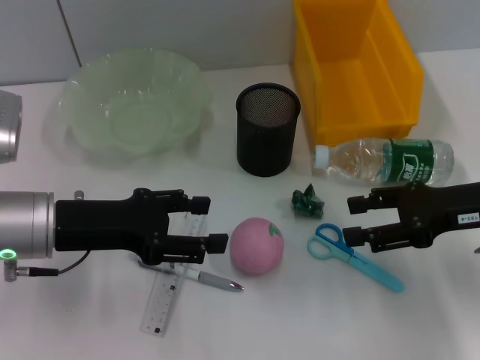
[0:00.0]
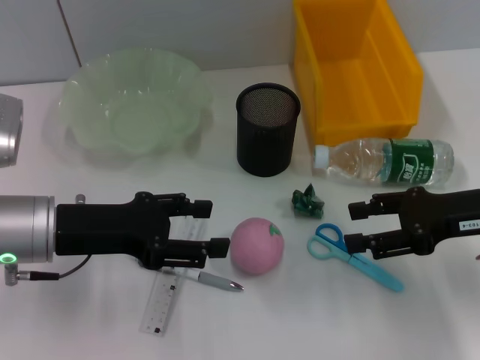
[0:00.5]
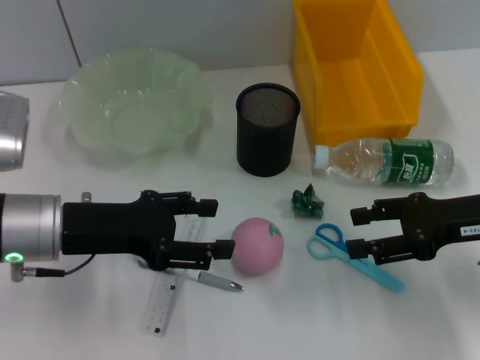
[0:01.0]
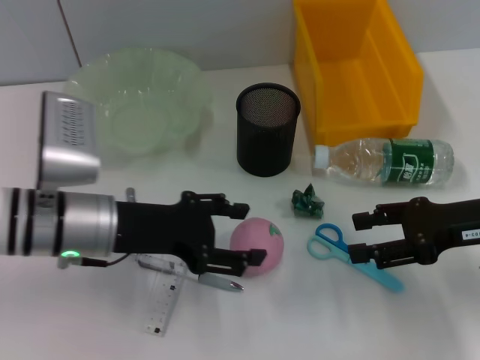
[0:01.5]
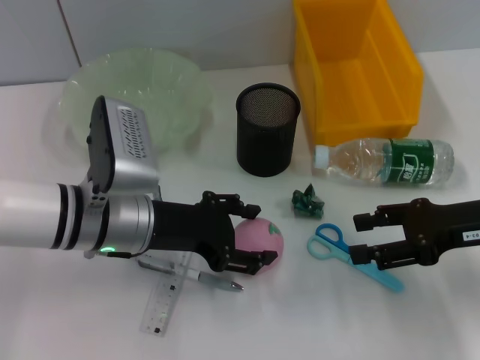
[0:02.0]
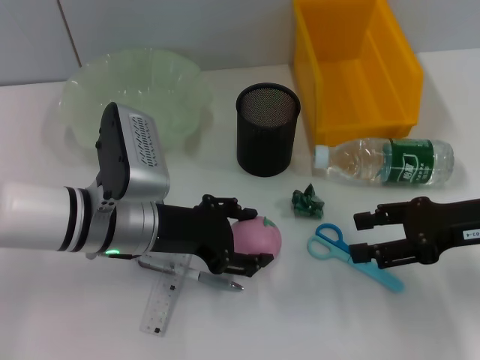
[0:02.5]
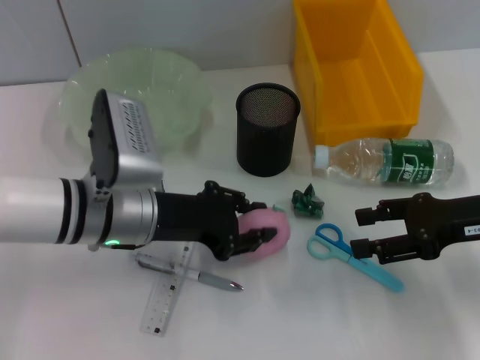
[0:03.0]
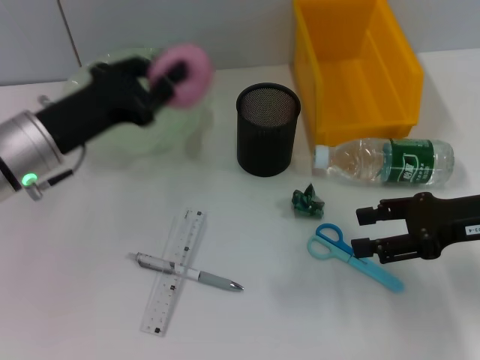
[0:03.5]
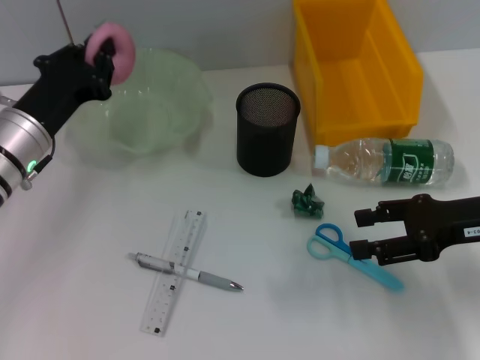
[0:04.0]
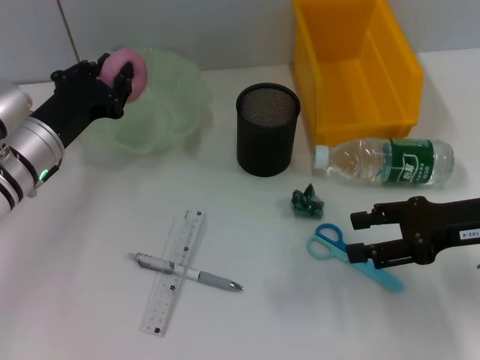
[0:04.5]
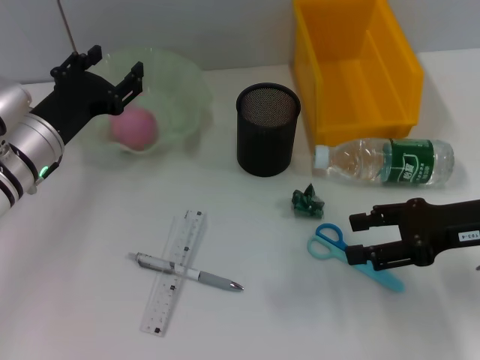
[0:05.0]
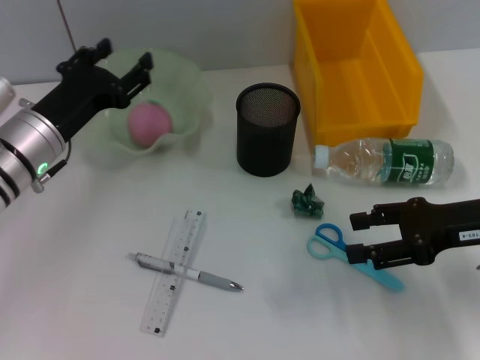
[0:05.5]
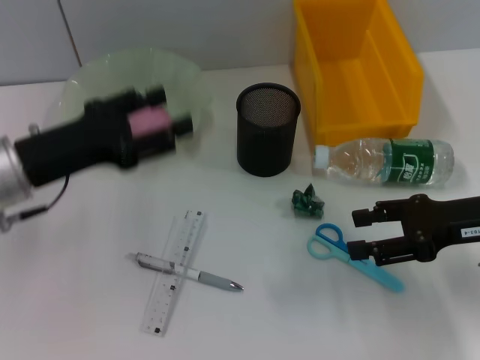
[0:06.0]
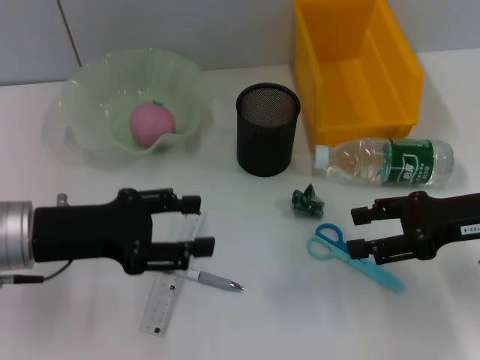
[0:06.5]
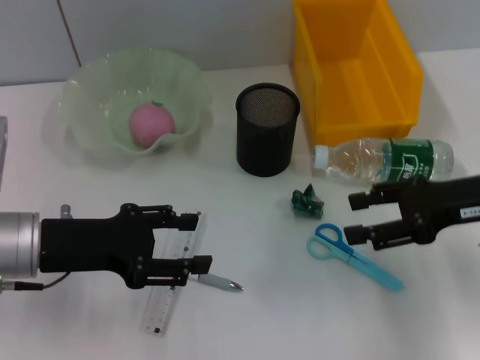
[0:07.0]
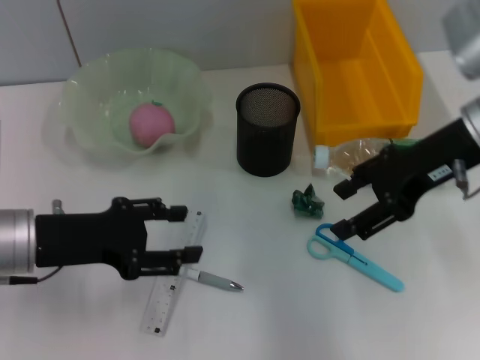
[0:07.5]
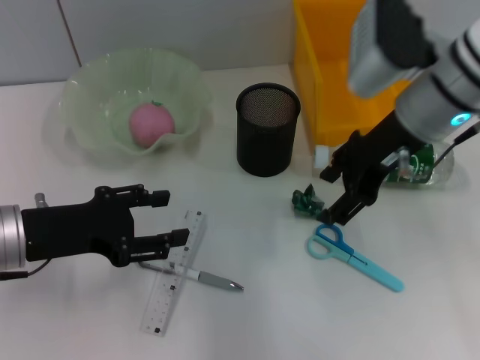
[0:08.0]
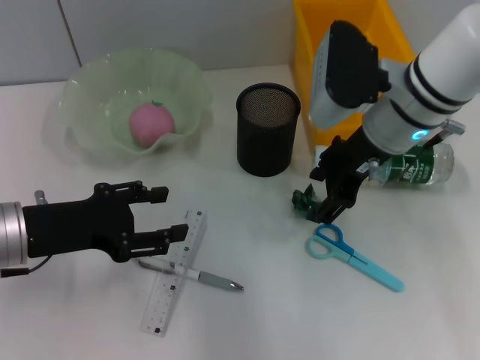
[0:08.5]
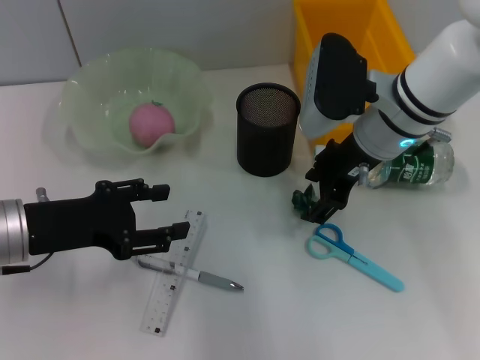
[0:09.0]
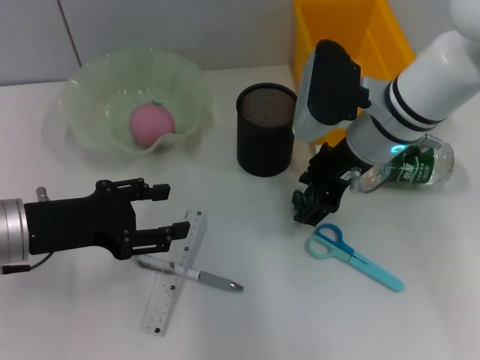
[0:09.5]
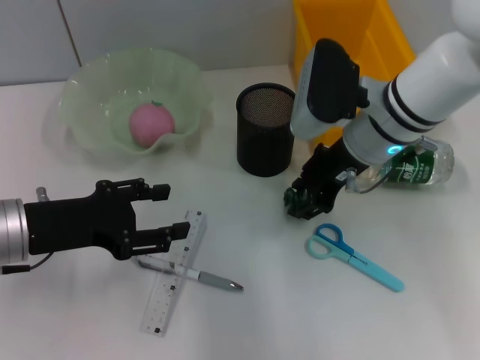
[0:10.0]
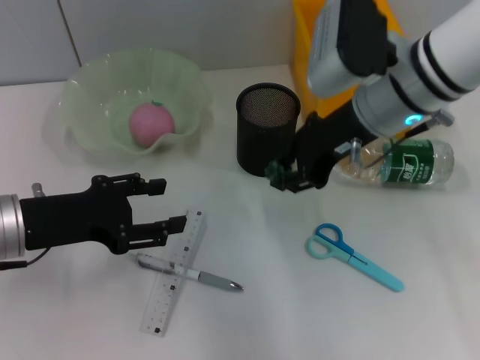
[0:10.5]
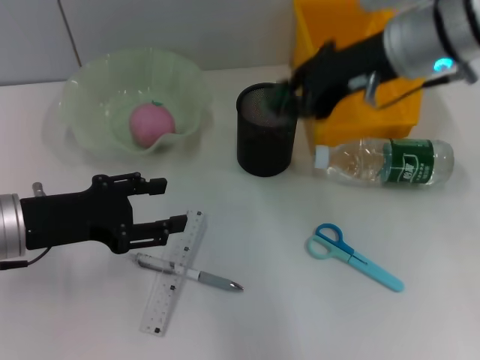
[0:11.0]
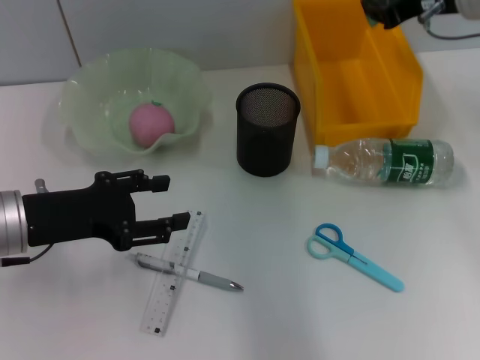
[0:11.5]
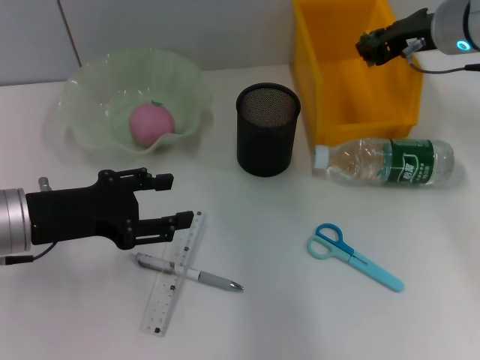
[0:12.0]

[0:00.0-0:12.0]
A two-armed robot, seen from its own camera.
Step, 0:00.0 to 0:02.5: Grab the peach with the left hand.
Step, 0:03.0 to 0:05.0: Place the peach into the fruit bowl with the left hand.
Step, 0:05.5 to 0:09.5: Grab the plastic with the right hand.
0:00.0 to 0:02.0: The left gripper travels to the right by approximately 5 cm.
0:02.0 to 0:04.0: The left gripper shifts some 10 cm to the left, and closes up.
0:04.0 to 0:06.0: The left gripper moves some 5 cm, and opens its fingers.
0:06.0 to 0:08.0: The right gripper heads to the left, upward and forward, covering some 15 cm.
0:08.0 to 0:10.0: The right gripper is displaced downward by some 5 cm.
0:10.0 to 0:12.0: The right gripper goes approximately 10 cm to the right and forward, and closes its fingers.

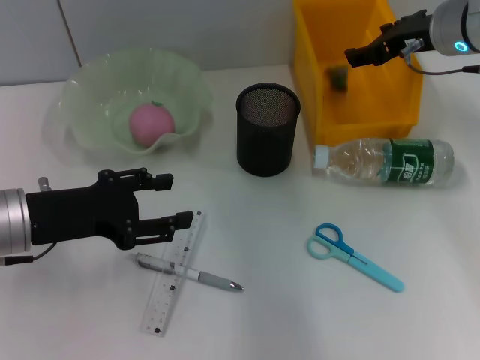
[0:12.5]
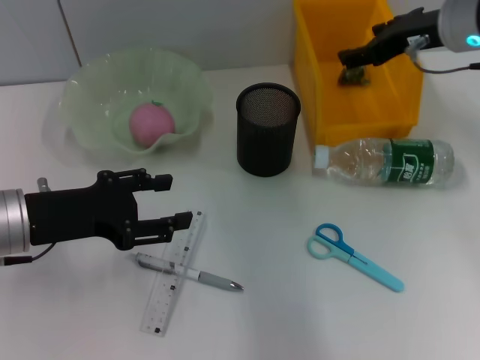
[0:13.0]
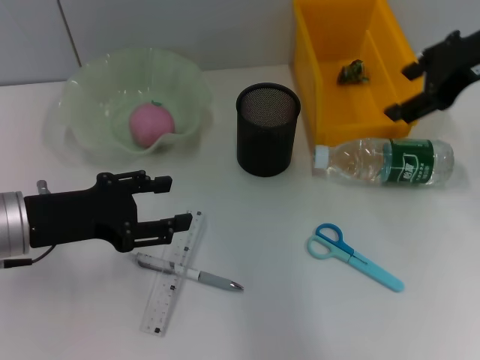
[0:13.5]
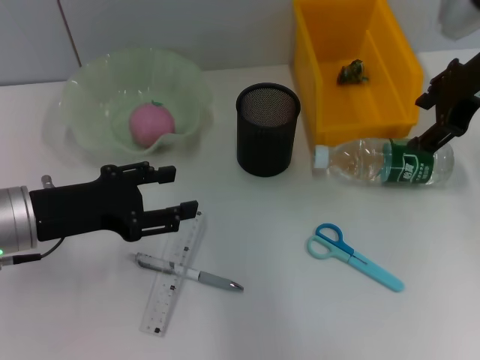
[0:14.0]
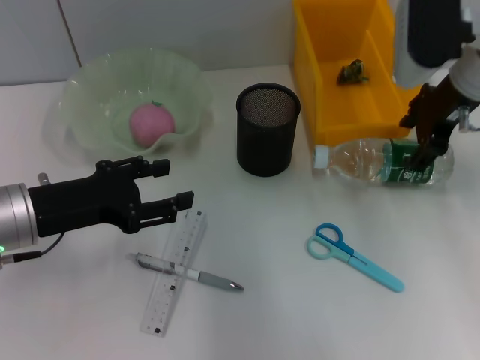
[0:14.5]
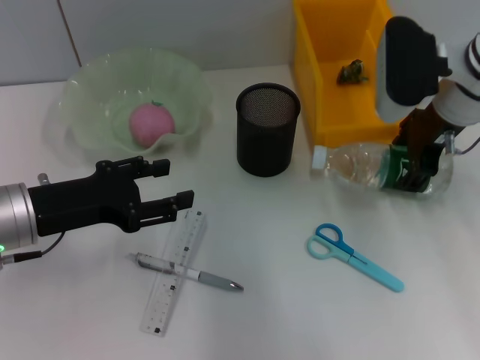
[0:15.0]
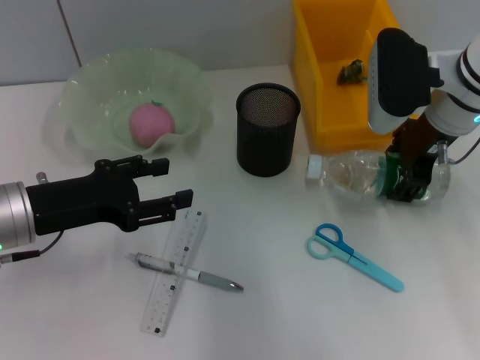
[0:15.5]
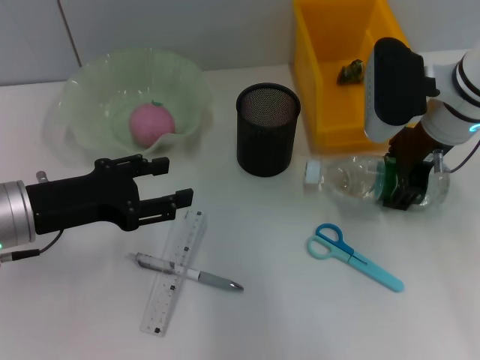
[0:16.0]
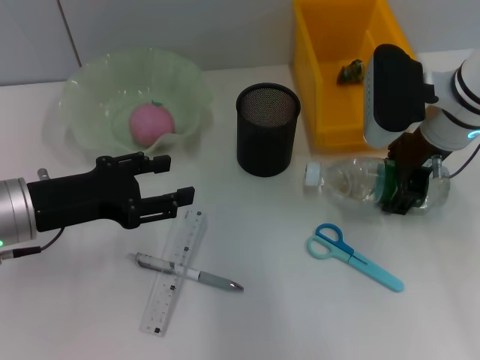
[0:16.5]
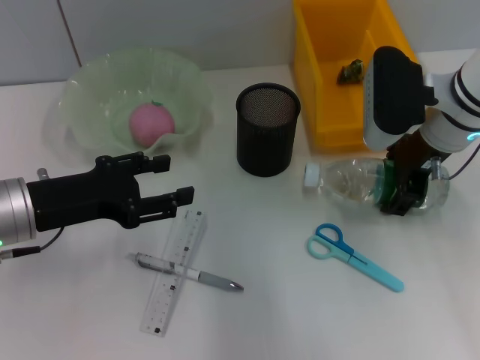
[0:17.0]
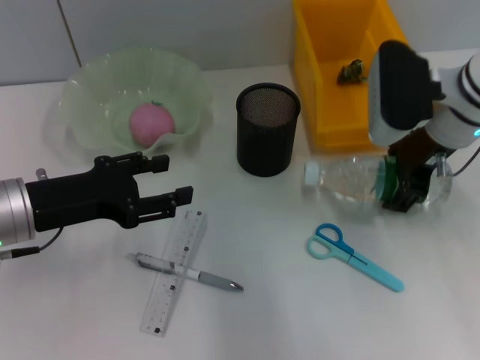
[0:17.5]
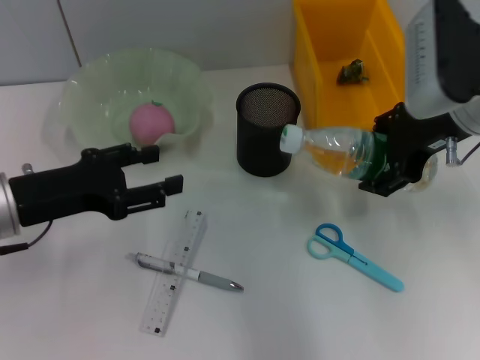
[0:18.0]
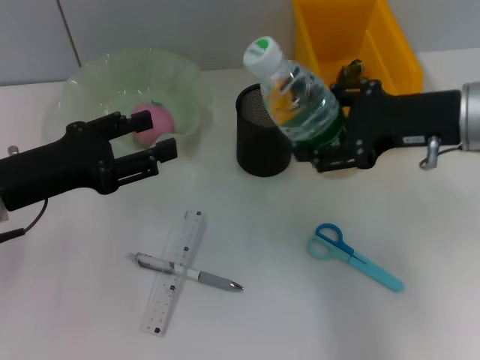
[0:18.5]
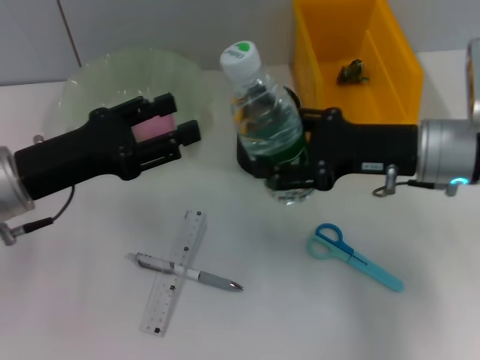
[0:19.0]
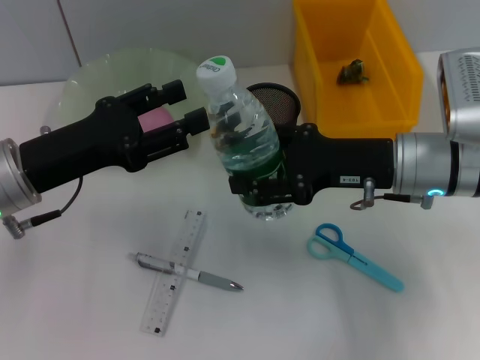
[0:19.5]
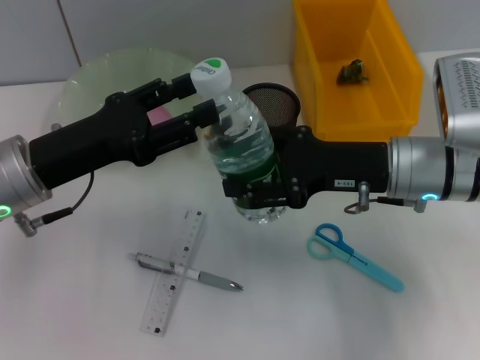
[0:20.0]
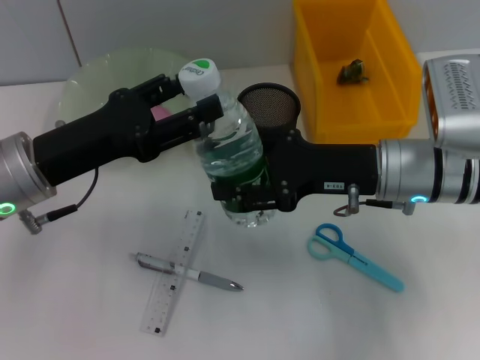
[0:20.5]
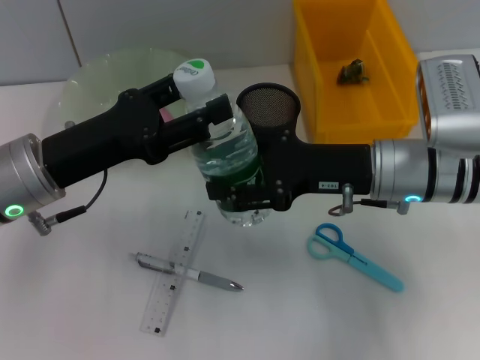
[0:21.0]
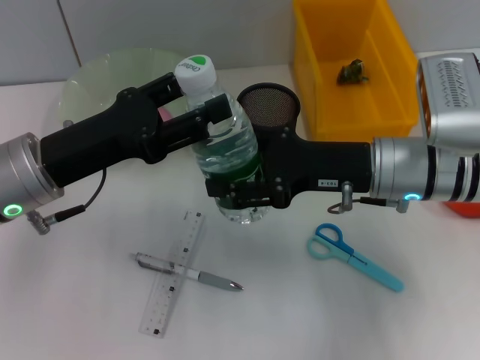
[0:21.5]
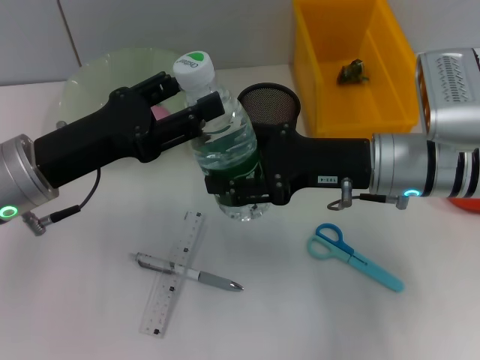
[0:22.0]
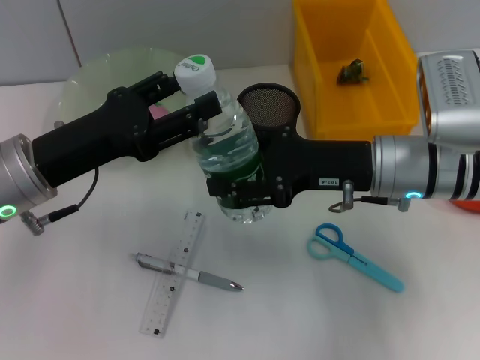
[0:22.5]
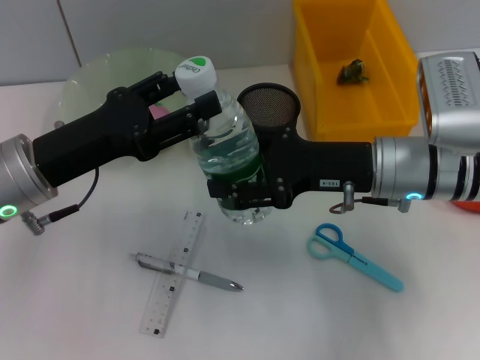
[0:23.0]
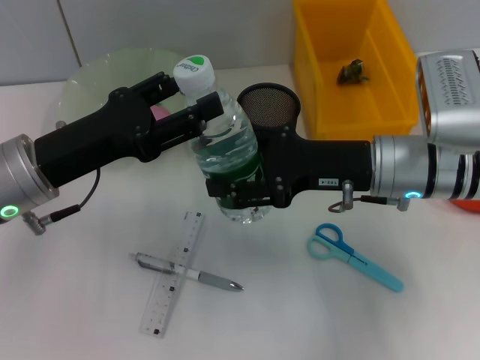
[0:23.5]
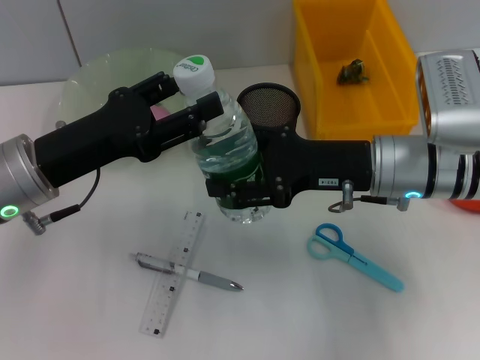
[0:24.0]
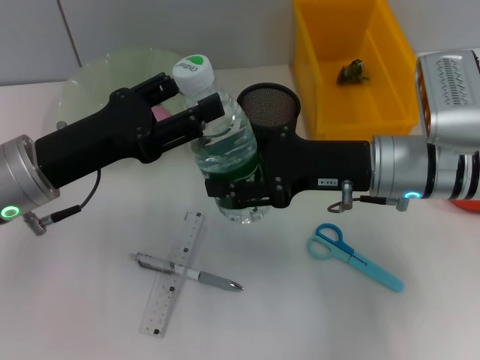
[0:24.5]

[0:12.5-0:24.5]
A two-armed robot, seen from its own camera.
Step, 0:13.0 to 0:17.0: Grab the water bottle with the right hand.
0:14.5 to 0:16.5: The right gripper heads downward, covering about 5 cm.
0:16.5 to 0:18.5: The right gripper travels backward by about 5 cm.
0:18.5 to 0:20.5: The right gripper heads downward and to the left, covering some 10 cm.
0:20.5 to 0:24.5: The two grippers keep their place.

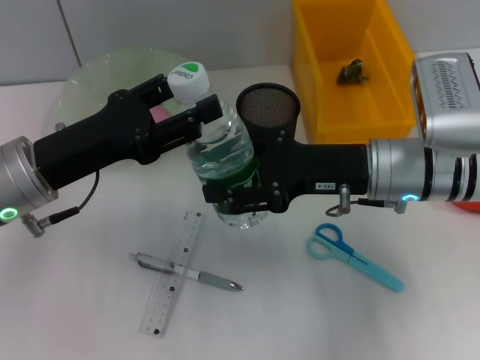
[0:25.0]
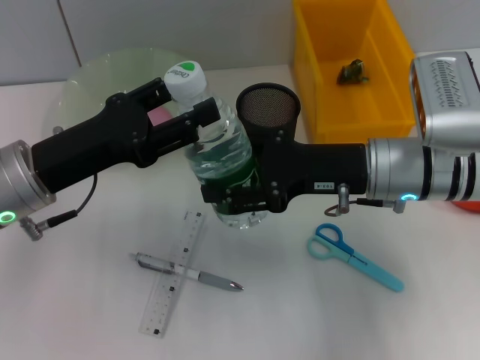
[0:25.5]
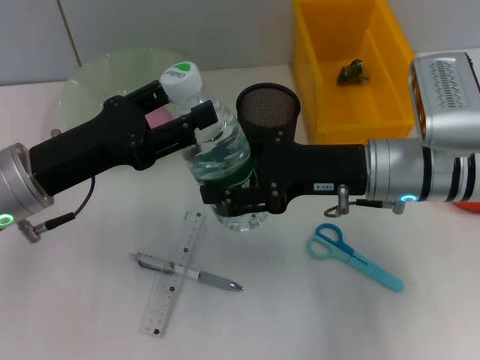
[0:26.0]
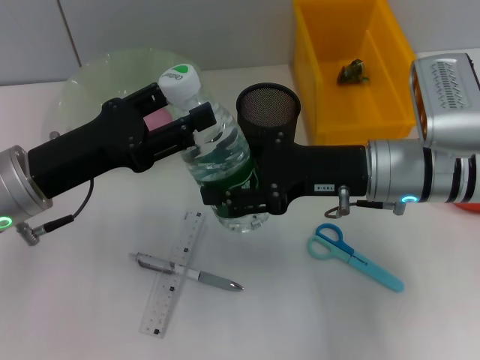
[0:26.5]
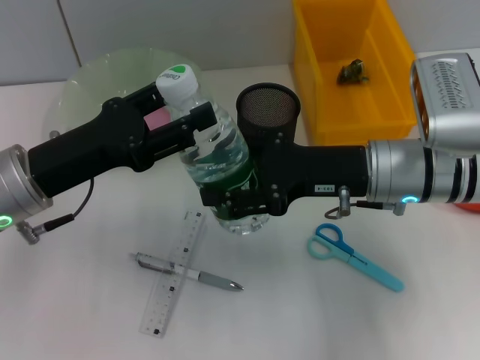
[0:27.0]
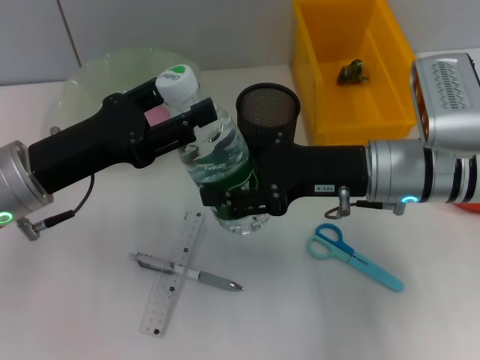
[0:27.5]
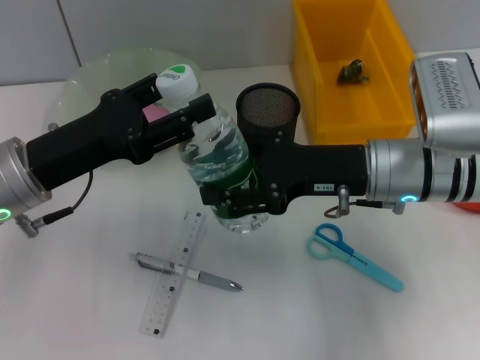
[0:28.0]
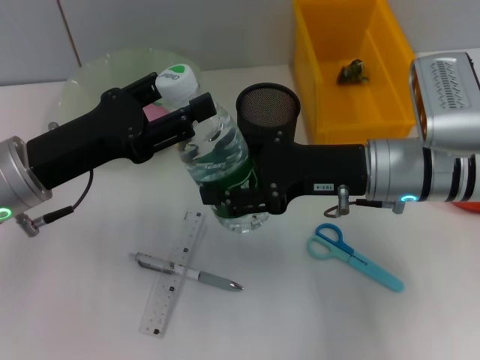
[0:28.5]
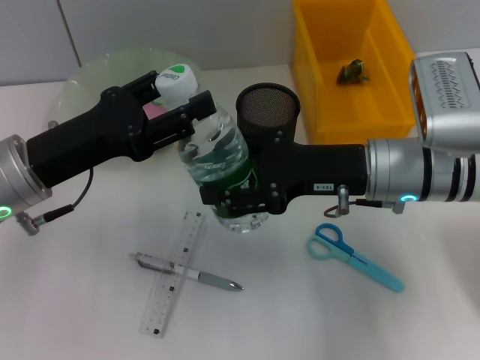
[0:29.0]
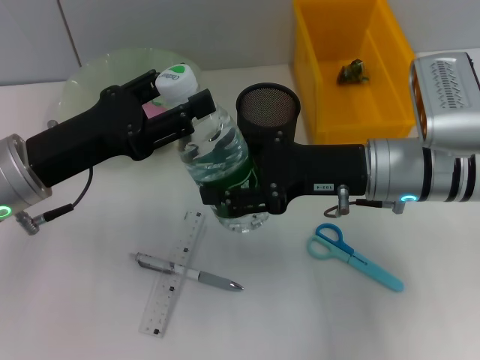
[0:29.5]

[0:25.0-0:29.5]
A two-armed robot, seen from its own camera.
0:25.0 to 0:29.5: The two grippers keep their place.
